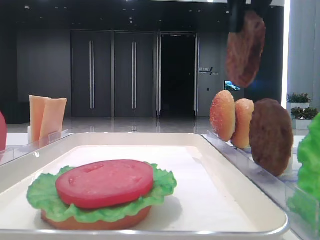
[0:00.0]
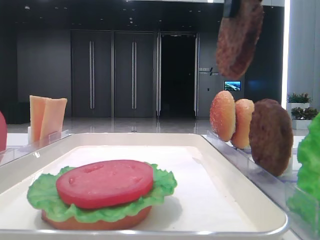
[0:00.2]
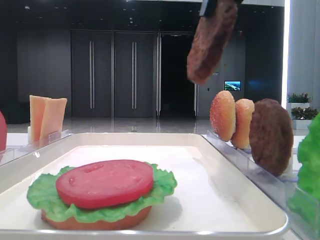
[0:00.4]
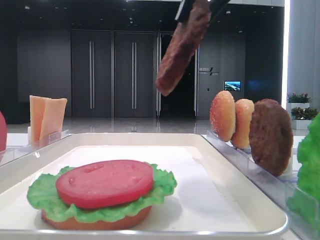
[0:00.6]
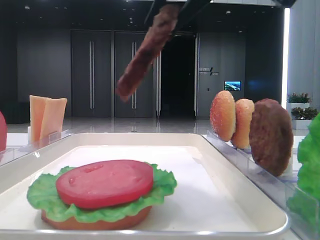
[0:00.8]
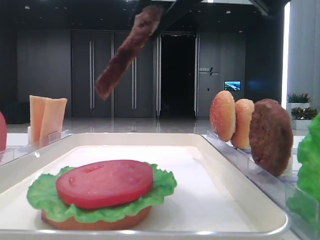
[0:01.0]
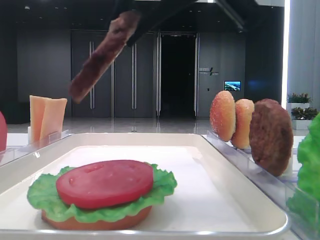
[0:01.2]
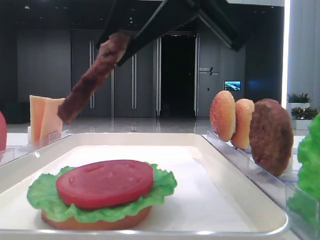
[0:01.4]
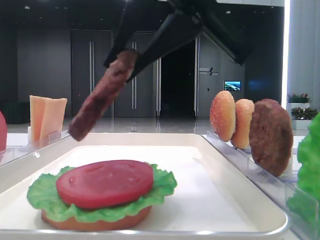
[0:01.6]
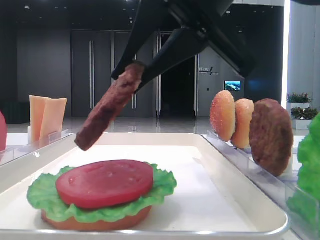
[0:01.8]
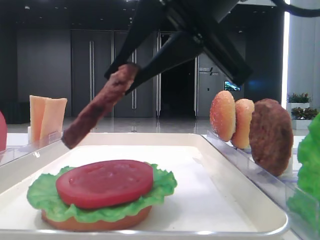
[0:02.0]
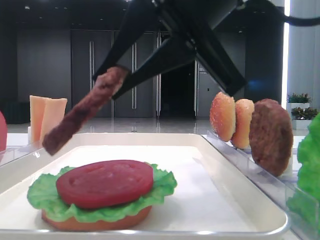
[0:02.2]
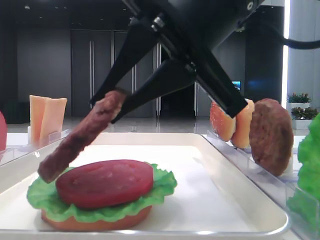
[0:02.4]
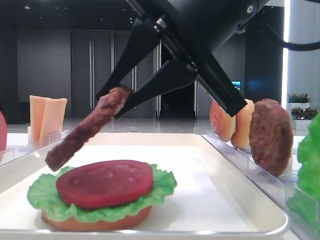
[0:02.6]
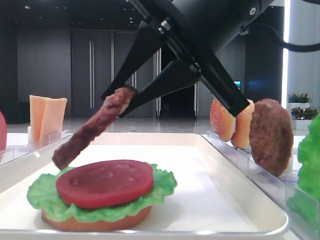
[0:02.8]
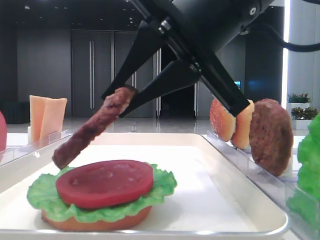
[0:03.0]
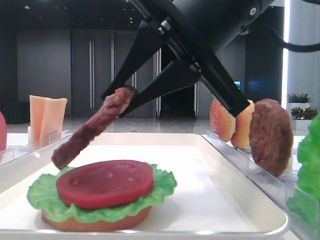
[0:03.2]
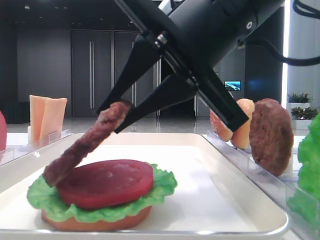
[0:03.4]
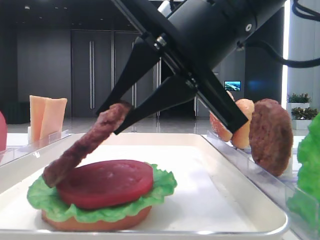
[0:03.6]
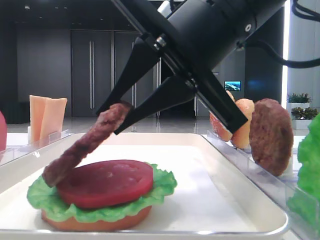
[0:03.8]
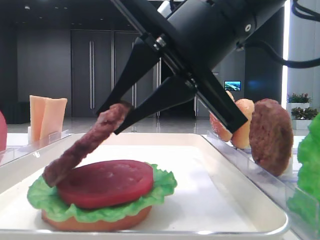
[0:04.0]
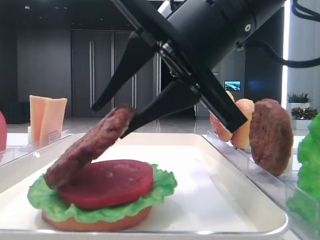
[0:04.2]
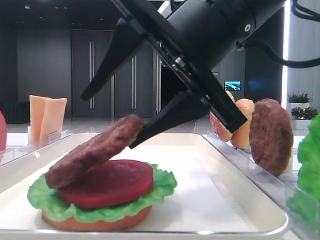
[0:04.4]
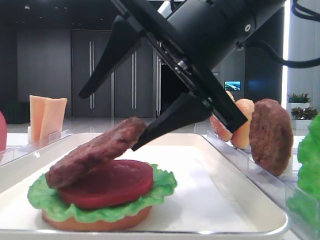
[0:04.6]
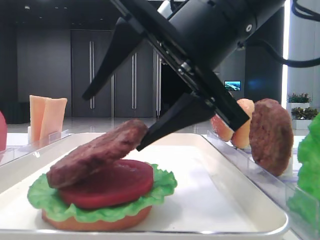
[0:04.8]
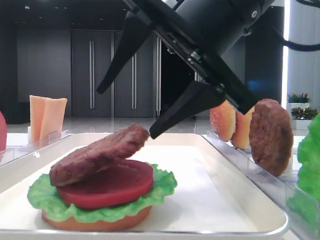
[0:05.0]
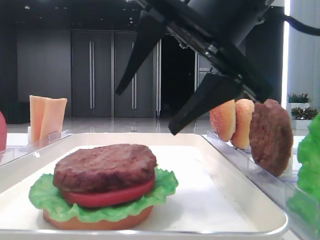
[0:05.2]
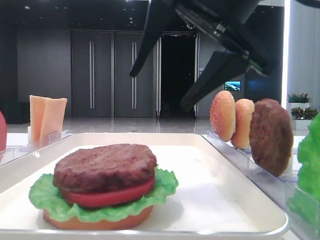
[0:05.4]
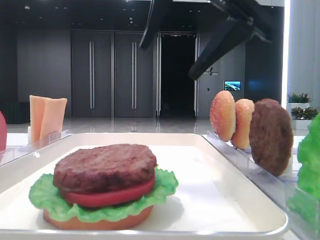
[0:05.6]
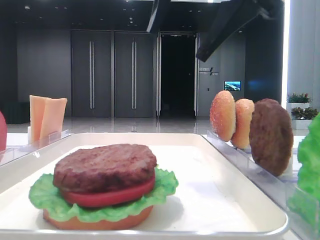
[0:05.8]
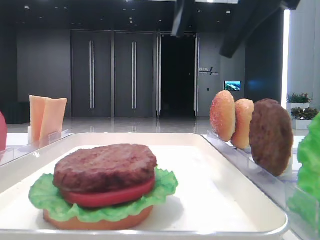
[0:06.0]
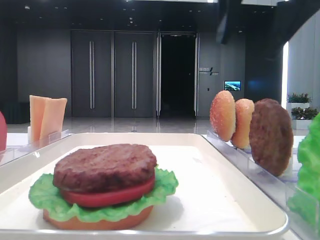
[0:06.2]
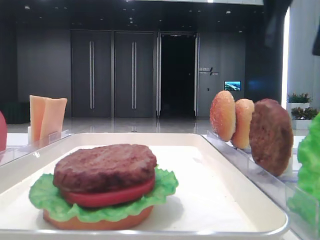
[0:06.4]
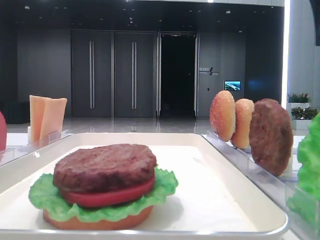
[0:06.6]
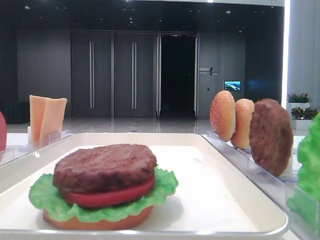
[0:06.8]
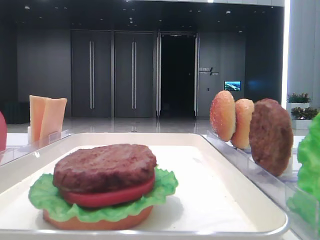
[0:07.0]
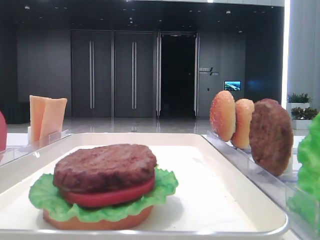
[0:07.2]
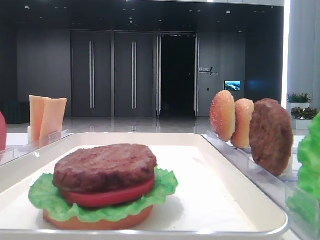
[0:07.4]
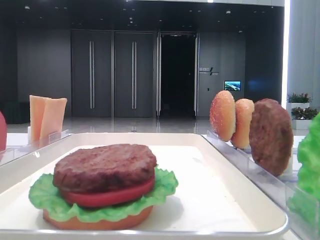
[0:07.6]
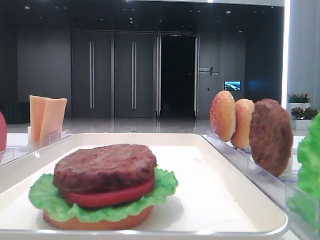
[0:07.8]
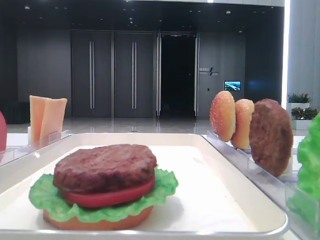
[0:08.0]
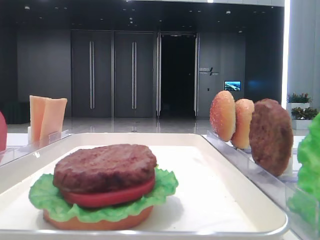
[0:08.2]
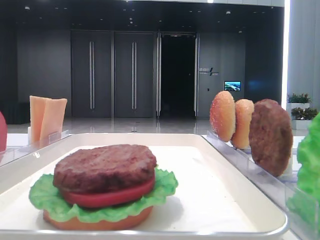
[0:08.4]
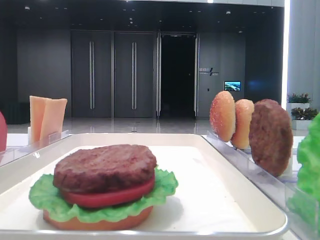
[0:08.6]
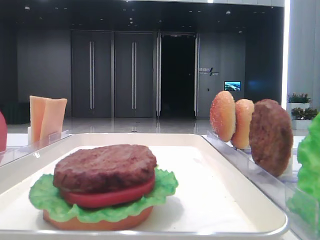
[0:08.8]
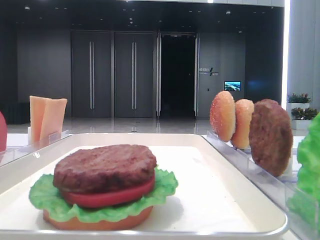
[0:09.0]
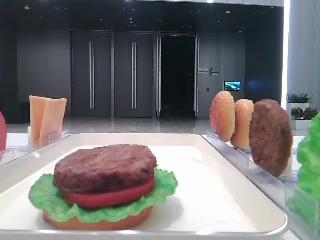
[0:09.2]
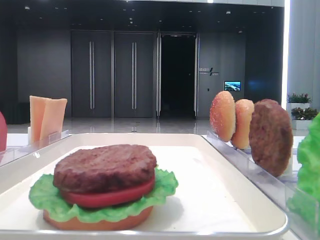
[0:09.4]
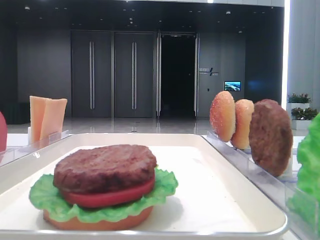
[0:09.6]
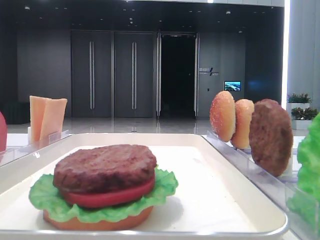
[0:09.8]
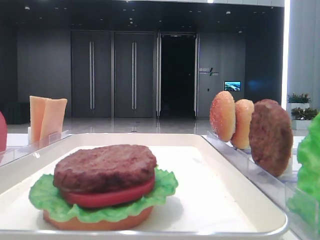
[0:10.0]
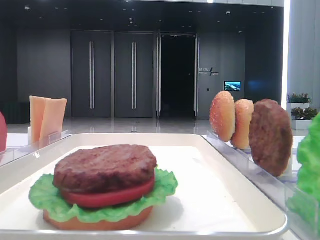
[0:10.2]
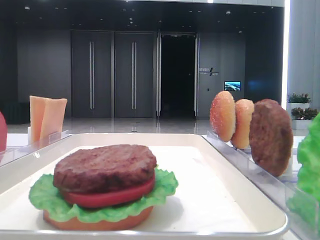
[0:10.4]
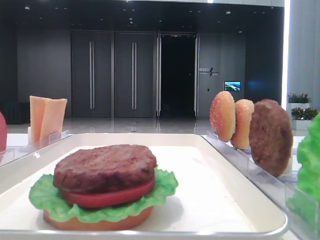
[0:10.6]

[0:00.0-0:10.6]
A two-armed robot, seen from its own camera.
Step, 0:00.0 to 0:05.0: Place the patty on the tomato slice with the right hand.
0:00.0 to 0:01.6: The right gripper goes approximately 10 cm downward, backward and to the left.
0:01.6 to 0:03.0: The grippers make only small movements.
0:03.0 to 0:04.6: The right gripper opens.
0:04.6 to 0:06.0: The right gripper heads upward, covering roughly 10 cm.
0:06.0 to 0:07.6: The right gripper travels to the right by about 20 cm.

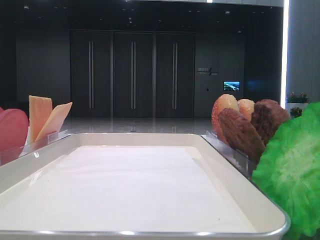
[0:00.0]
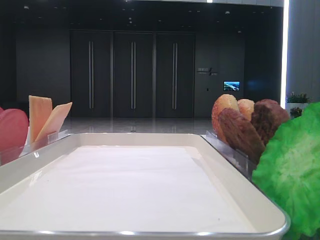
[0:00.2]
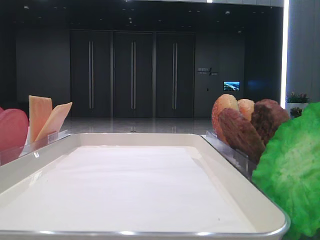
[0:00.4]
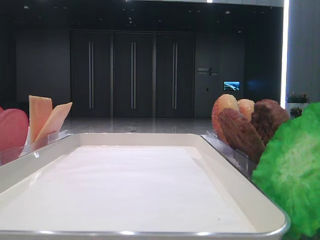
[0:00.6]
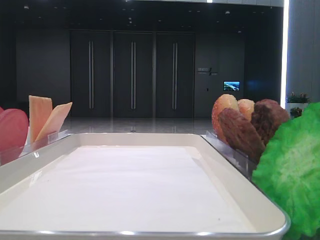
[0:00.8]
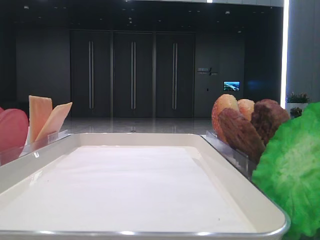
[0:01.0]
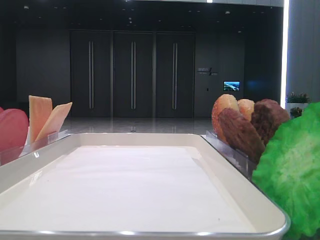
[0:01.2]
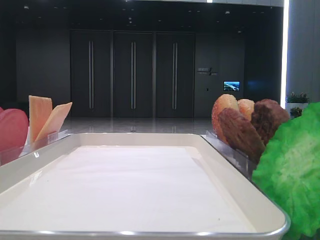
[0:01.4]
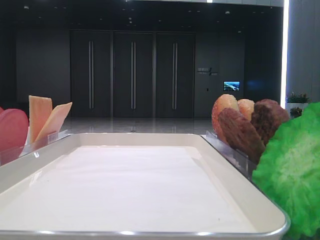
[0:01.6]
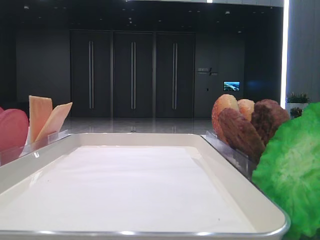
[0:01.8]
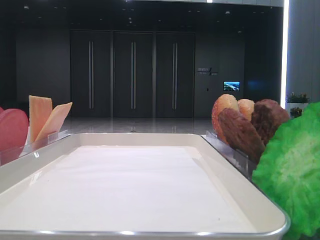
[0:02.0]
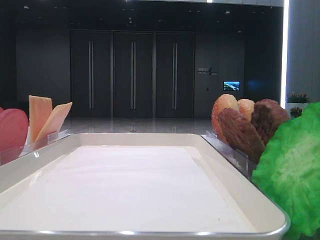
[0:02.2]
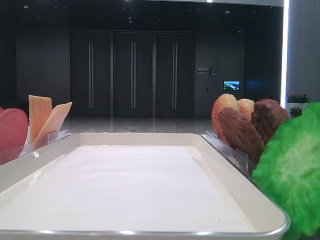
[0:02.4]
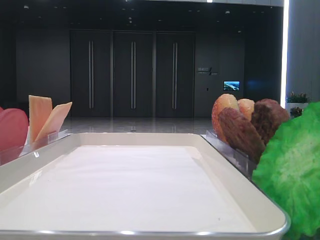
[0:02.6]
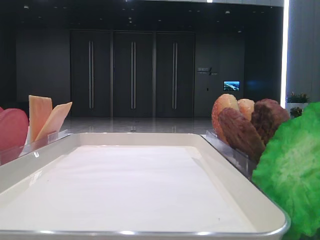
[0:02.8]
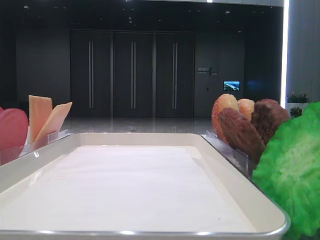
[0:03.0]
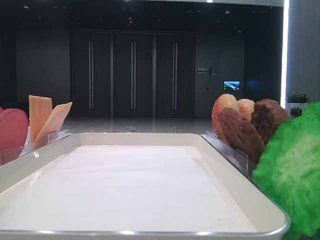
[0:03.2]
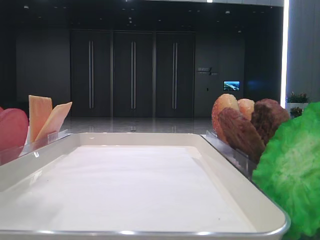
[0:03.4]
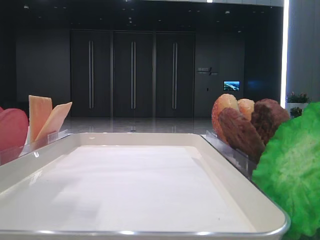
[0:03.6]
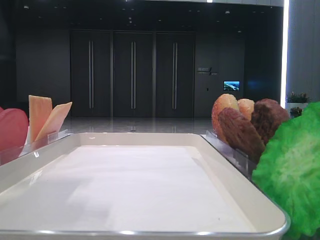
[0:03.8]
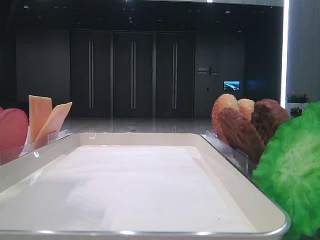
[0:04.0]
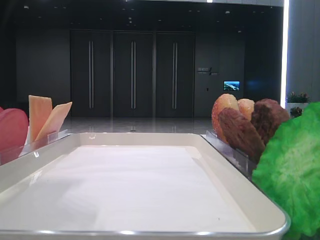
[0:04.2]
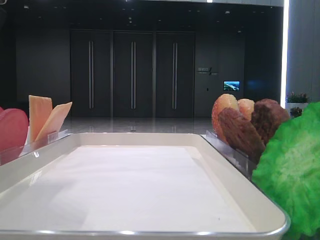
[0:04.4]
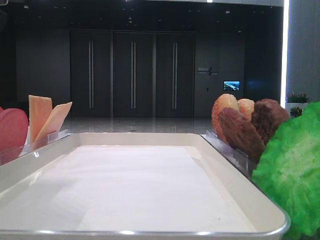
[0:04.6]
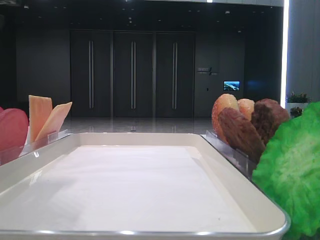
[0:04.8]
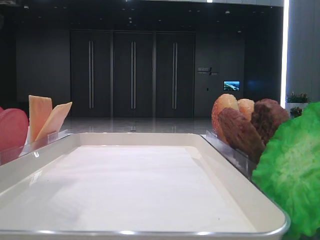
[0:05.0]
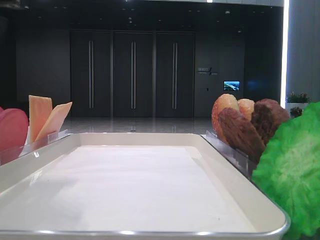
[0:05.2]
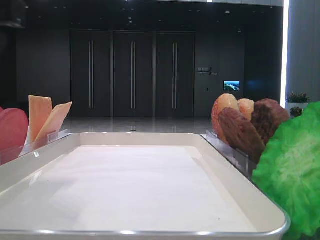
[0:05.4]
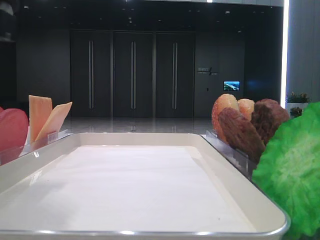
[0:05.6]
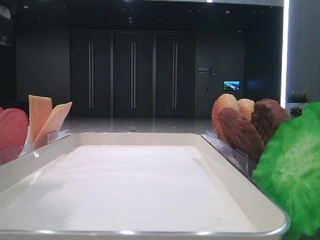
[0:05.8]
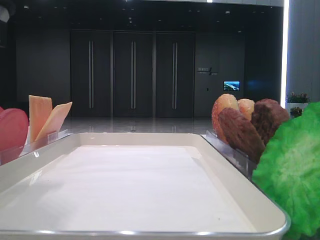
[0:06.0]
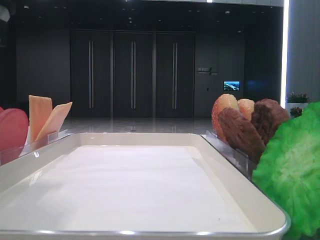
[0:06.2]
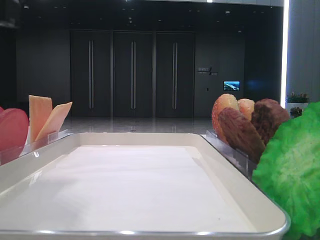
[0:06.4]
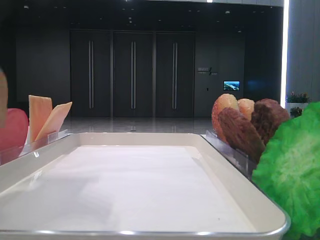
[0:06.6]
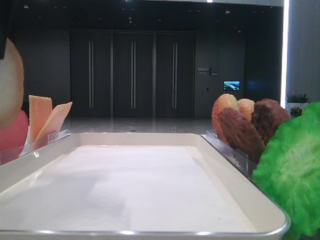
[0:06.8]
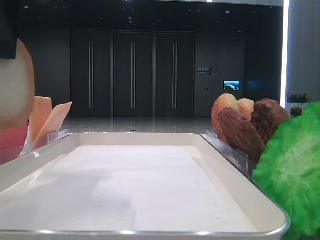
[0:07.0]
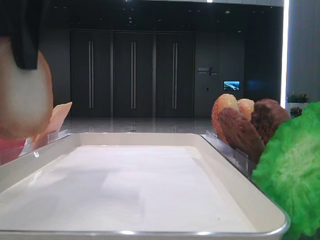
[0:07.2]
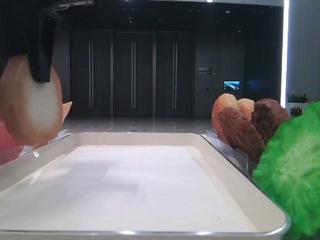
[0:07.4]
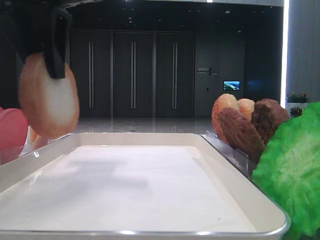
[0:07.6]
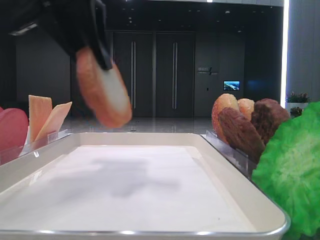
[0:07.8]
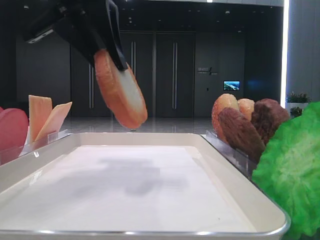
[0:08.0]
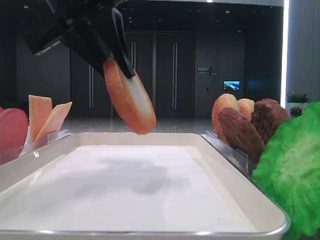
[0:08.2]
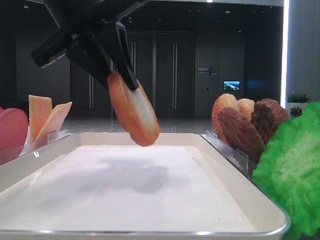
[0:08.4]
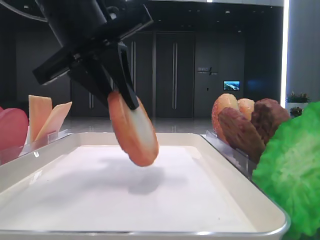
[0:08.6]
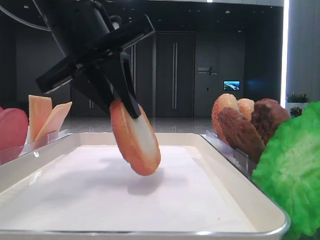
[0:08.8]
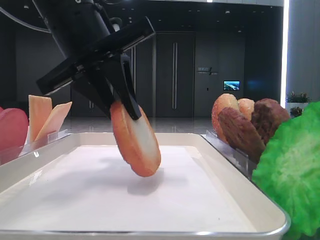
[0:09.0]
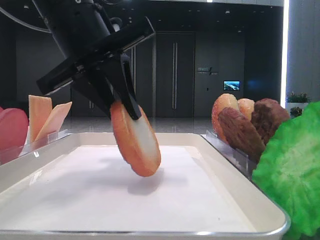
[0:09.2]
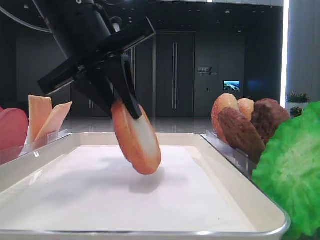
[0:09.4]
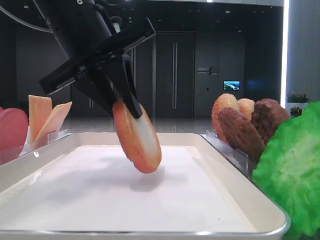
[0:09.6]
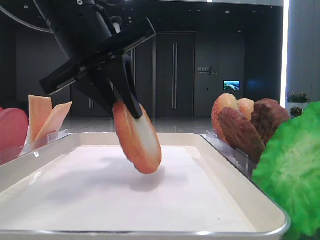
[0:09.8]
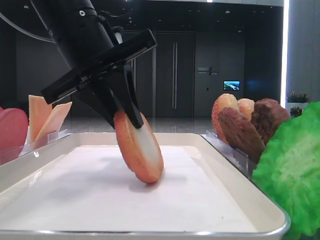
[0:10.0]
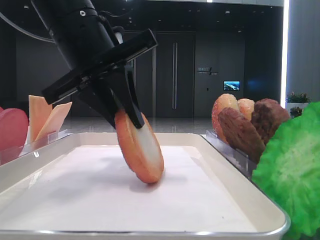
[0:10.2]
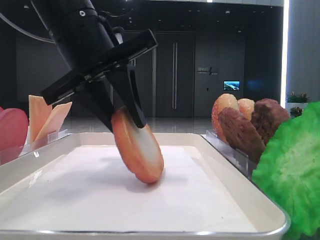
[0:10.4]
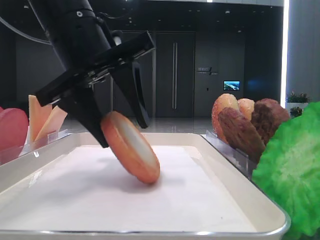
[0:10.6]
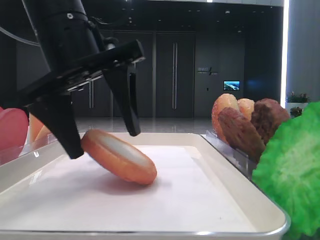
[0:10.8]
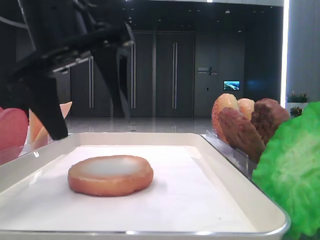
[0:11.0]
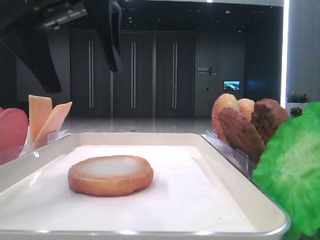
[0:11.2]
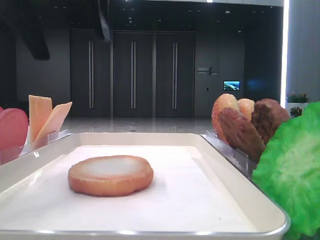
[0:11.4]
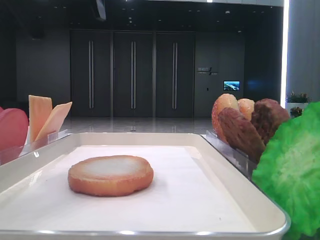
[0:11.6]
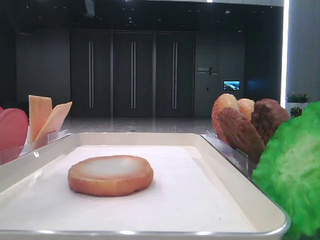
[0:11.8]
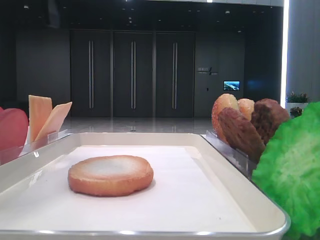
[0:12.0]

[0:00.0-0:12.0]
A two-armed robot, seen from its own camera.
Step, 0:00.0 to 0:06.2: Pick up the bottom bread with the left hand.
Step, 0:06.4 to 0:10.8: Place the bread on the tray with the left hand.
0:03.0 to 0:04.4: The left gripper shifts some 15 cm to the right.
0:06.0 to 0:07.6: The left gripper goes some 10 cm forward and upward.
0:07.6 to 0:09.0: The left gripper heads downward, covering about 5 cm.
0:09.0 to 0:10.4: Both grippers stay put.
0:10.4 to 0:12.0: The left gripper moves upward and to the left, roughly 15 cm, and opens its fingers.
